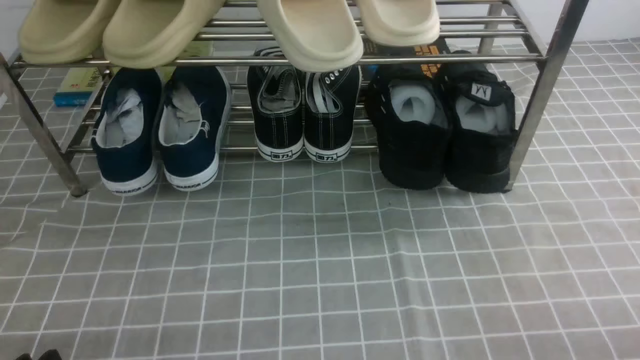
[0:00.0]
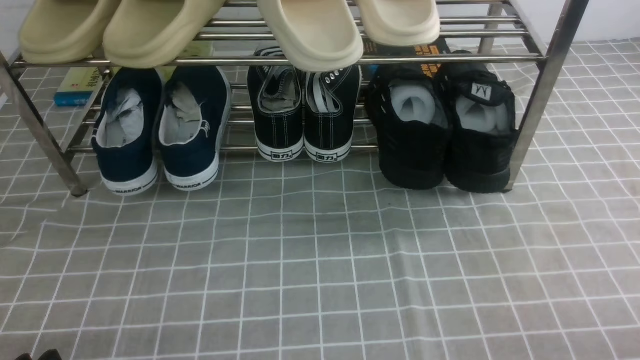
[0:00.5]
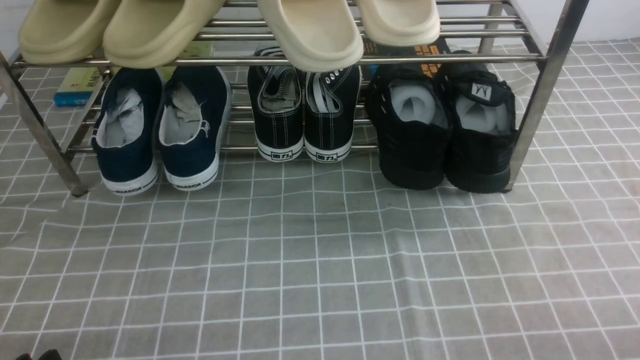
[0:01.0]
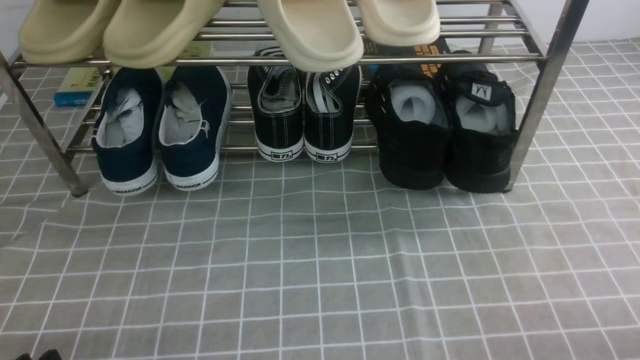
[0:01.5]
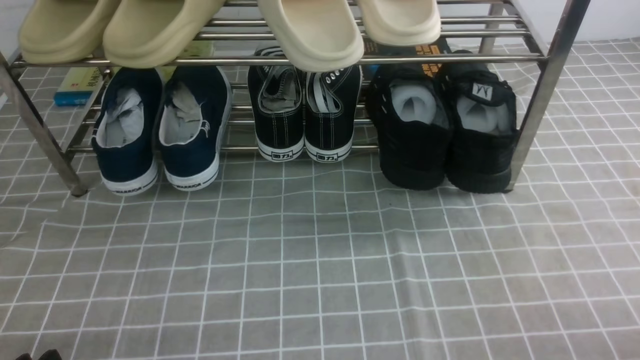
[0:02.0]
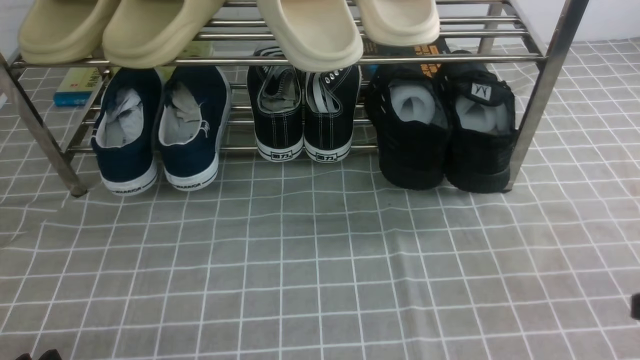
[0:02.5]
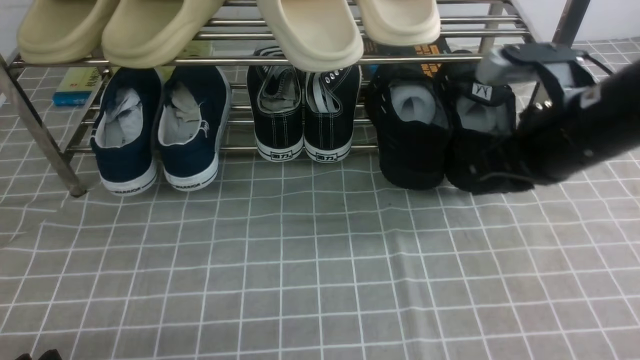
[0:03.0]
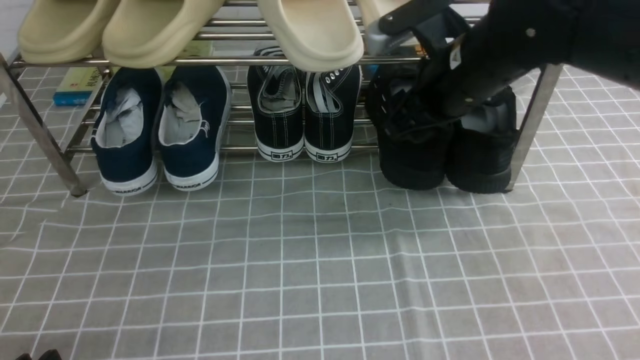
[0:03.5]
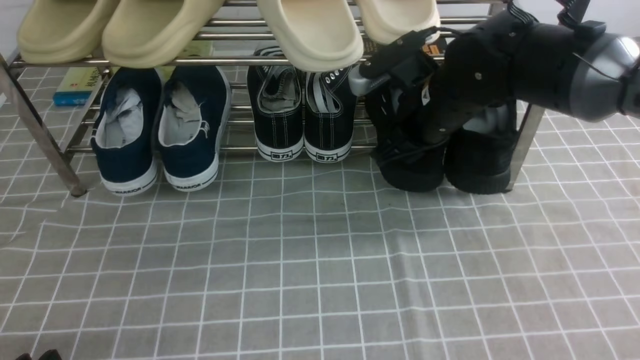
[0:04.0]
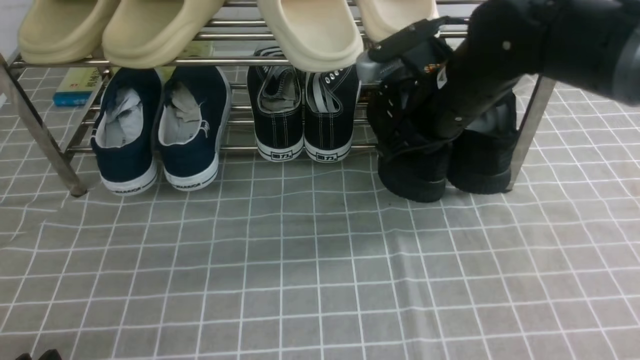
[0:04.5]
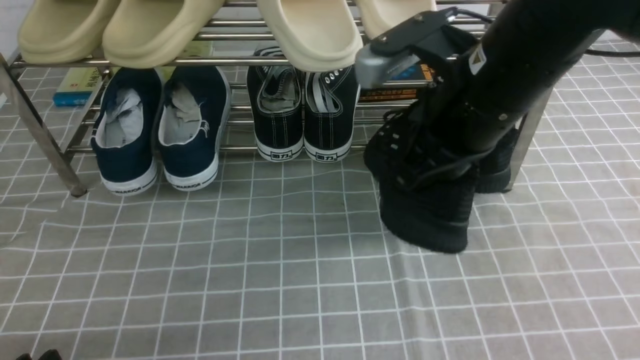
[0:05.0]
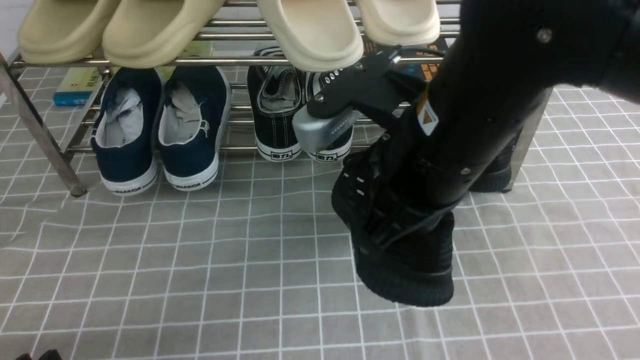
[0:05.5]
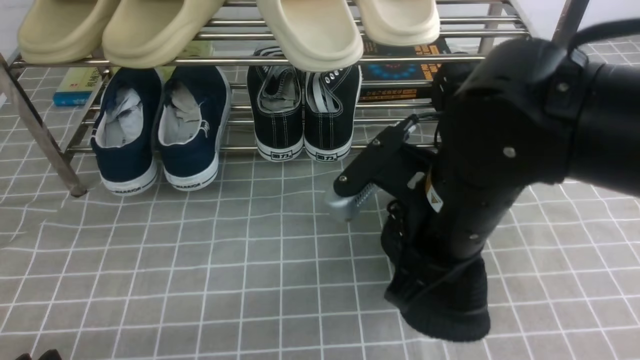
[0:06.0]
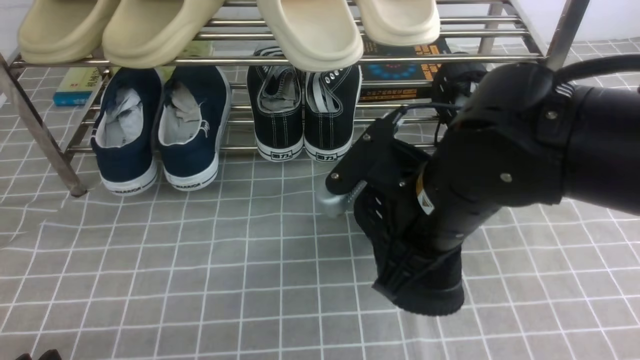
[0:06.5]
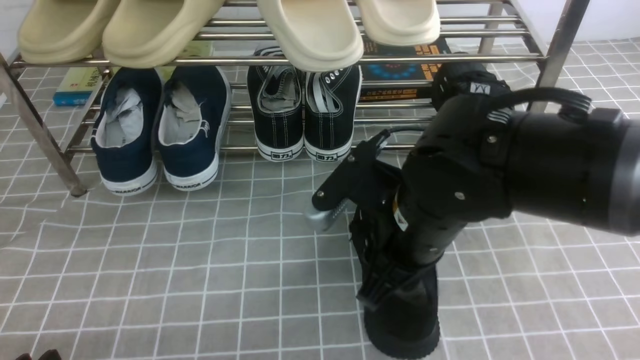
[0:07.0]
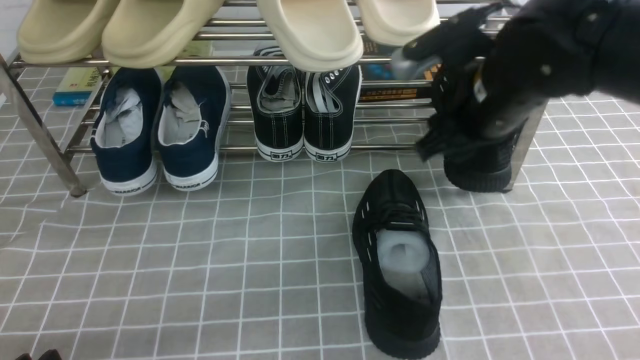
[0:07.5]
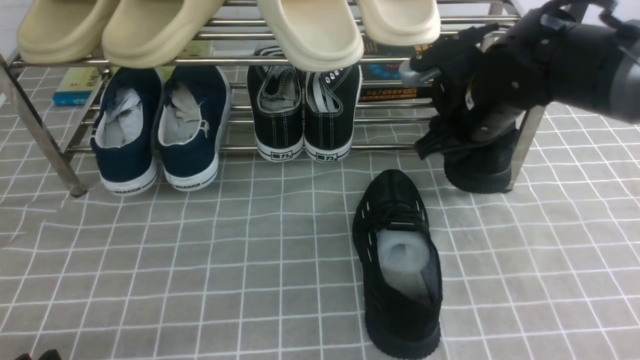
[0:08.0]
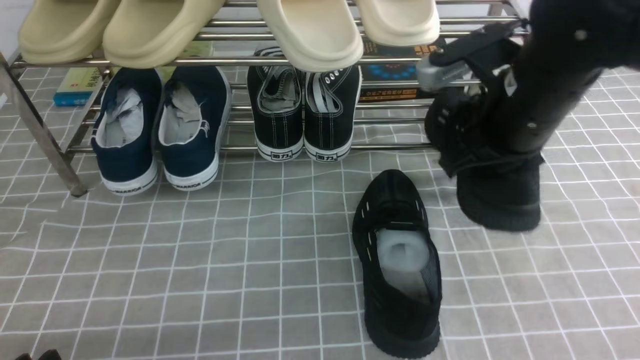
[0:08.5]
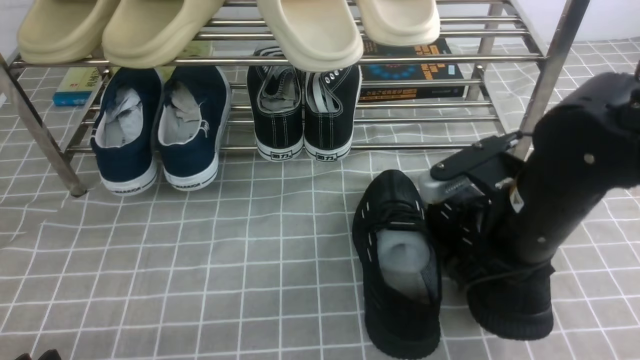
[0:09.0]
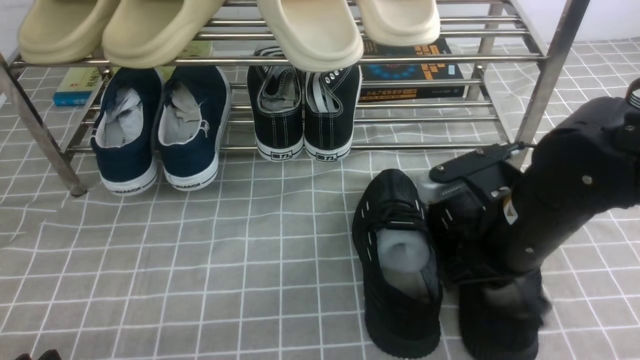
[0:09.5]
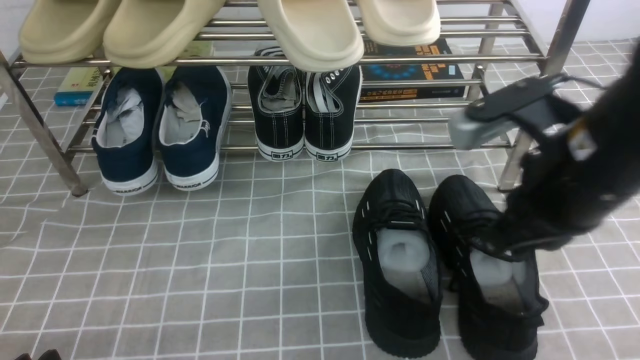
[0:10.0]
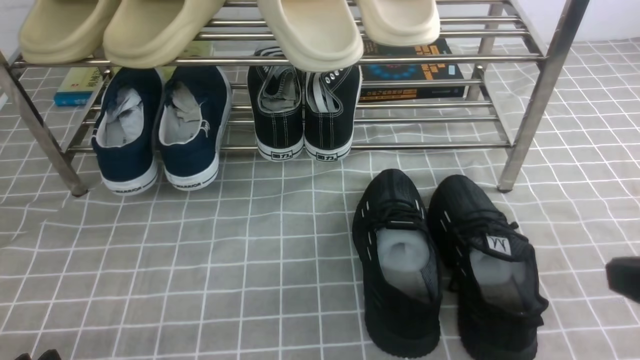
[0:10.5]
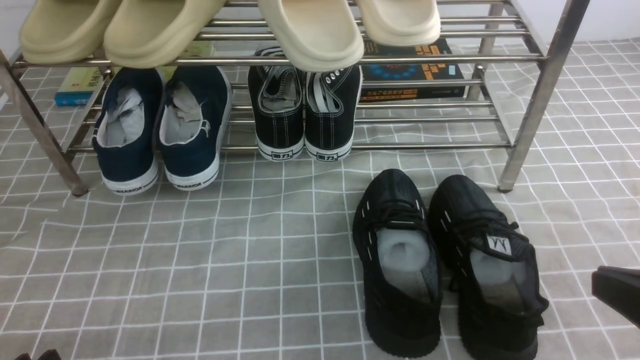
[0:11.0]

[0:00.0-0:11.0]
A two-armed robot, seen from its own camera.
Step, 0:00.0 to 0:04.5: use the right arm to clamp a shoe on the right side of the shoe rack.
Step, 0:05.0 to 0:07.0: use the right arm to take out the clamped shoe from the shoe rack and put it down.
Step, 0:07.5 to 0:08.0: use the right arm to clamp a shoe on the right side of the shoe rack.
Step, 0:08.5 to 0:09.5: use the right arm to take out the clamped shoe from the shoe rack and put it down.
0:02.0 to 0:03.5: The right gripper heads forward and to the left, covering approximately 35 cm, and opens.
0:03.5 to 0:05.5: The right gripper shifts roughly 15 cm backward, and closes up.
0:05.5 to 0:07.5: The right gripper heads forward and to the right, covering approximately 10 cm, and opens up.
0:07.5 to 0:09.0: The right gripper goes some 10 cm backward and downward, and closes its fingers.
0:09.0 to 0:11.0: The right gripper moves backward and to the right, approximately 20 cm.

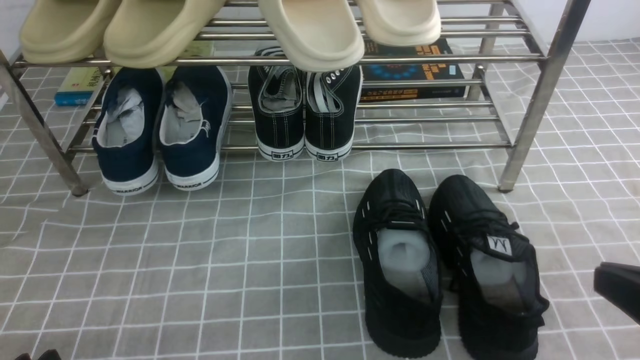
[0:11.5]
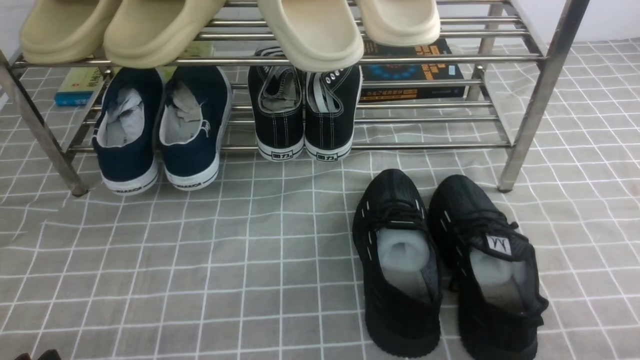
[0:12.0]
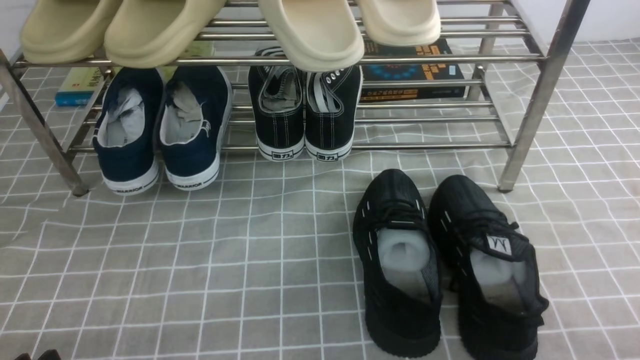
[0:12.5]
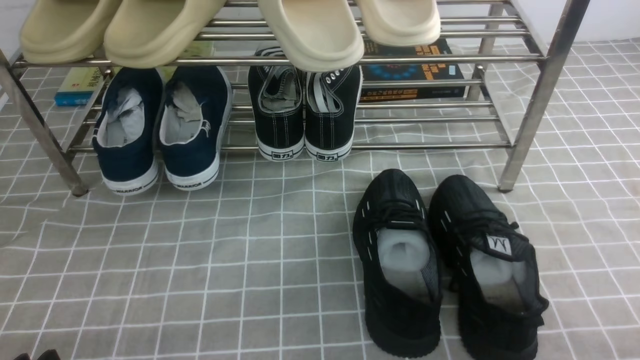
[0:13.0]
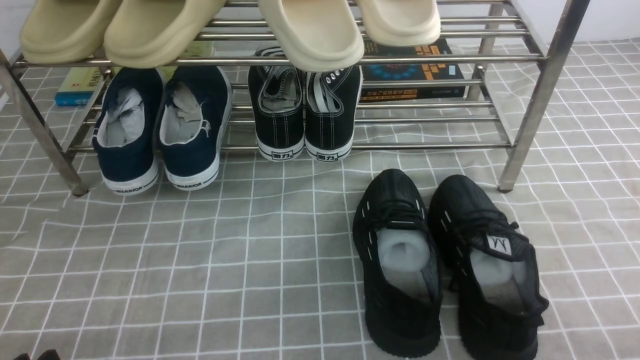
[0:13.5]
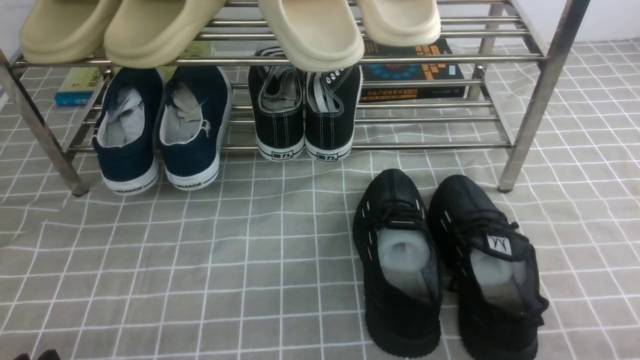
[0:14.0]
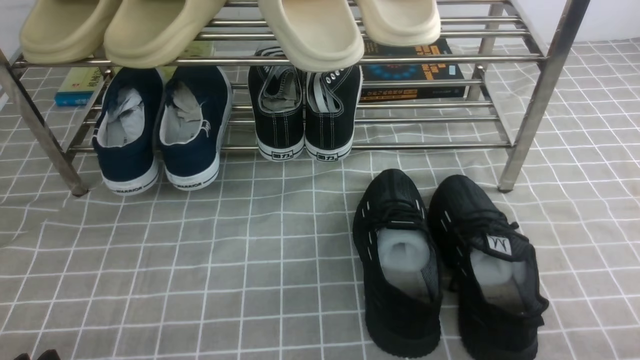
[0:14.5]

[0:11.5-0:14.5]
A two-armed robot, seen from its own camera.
0:11.5 to 0:13.0: The right gripper heads downward, covering approximately 10 cm.
0:13.0 to 0:14.5: Both grippers stay about where they are.

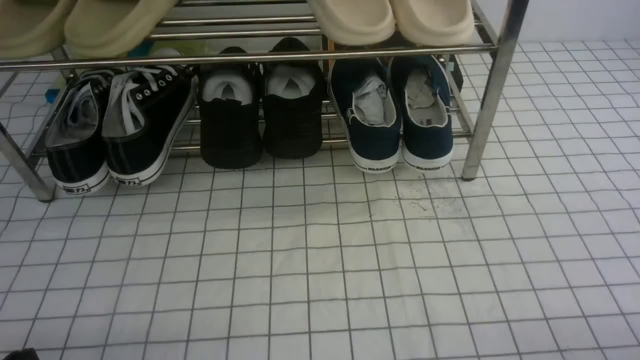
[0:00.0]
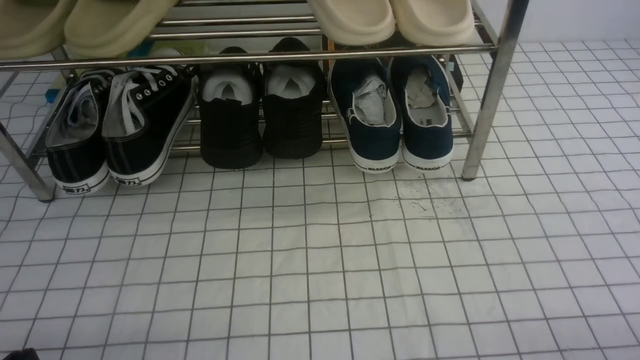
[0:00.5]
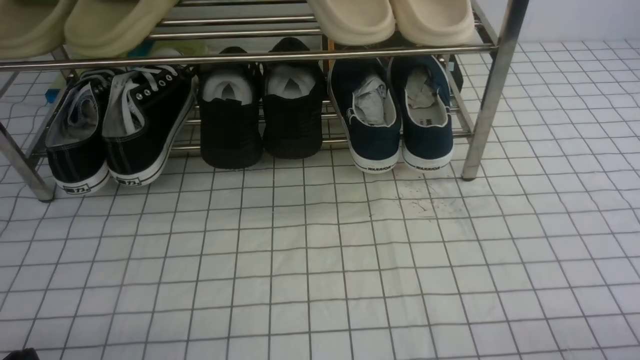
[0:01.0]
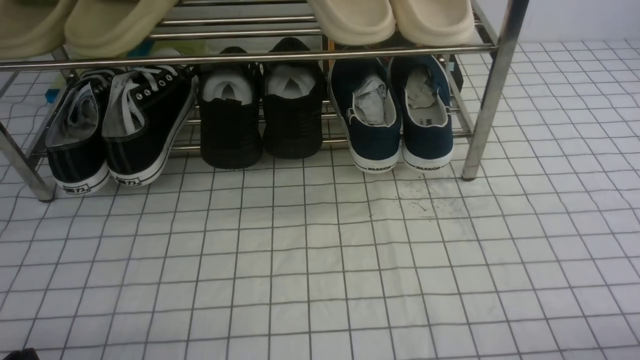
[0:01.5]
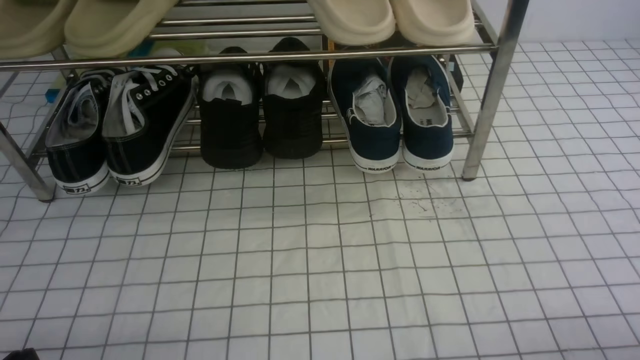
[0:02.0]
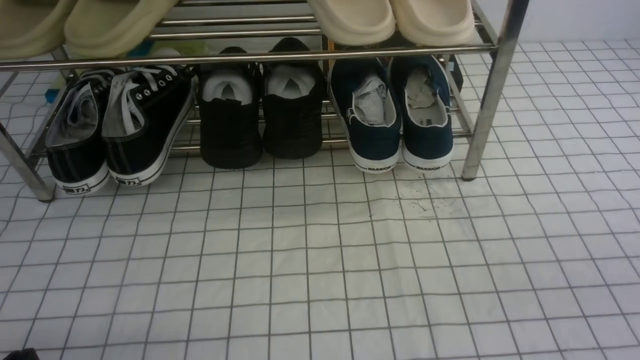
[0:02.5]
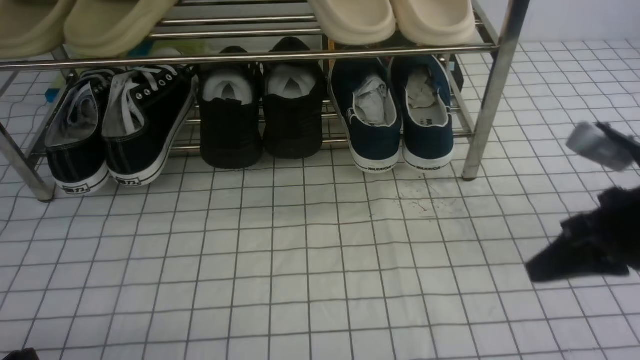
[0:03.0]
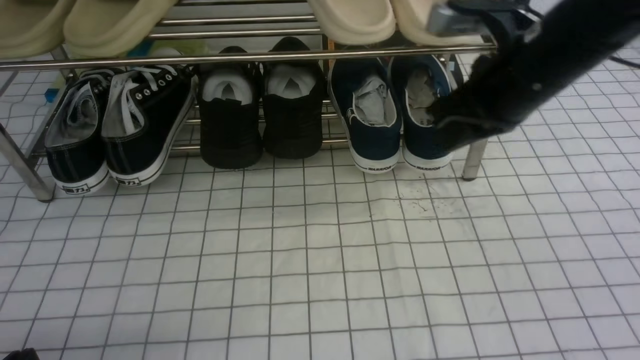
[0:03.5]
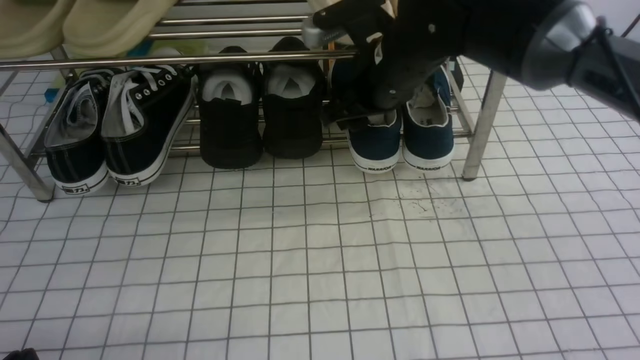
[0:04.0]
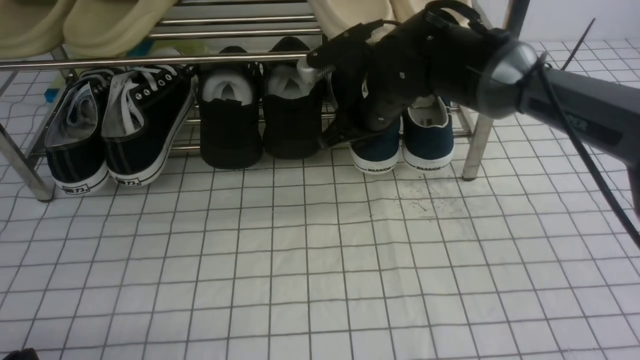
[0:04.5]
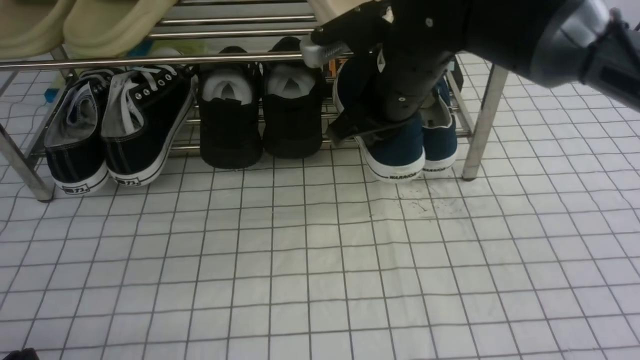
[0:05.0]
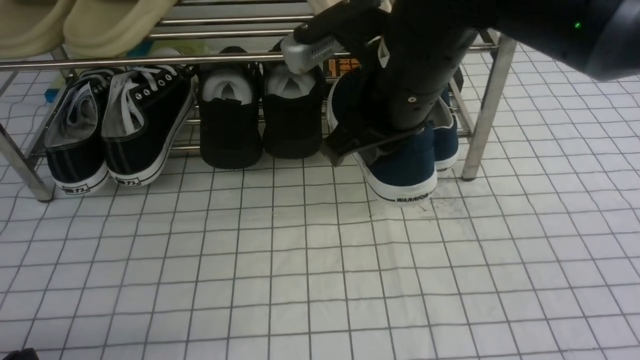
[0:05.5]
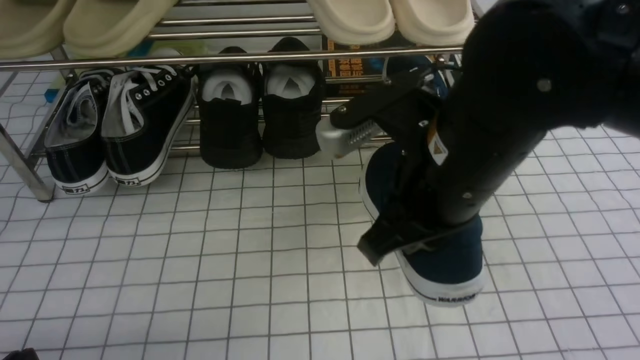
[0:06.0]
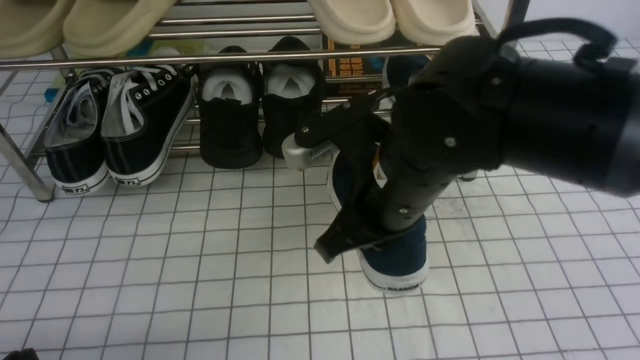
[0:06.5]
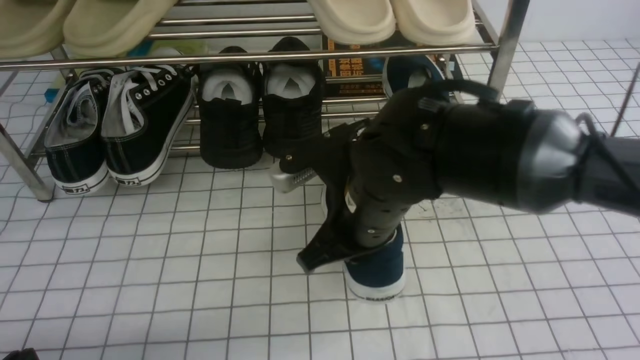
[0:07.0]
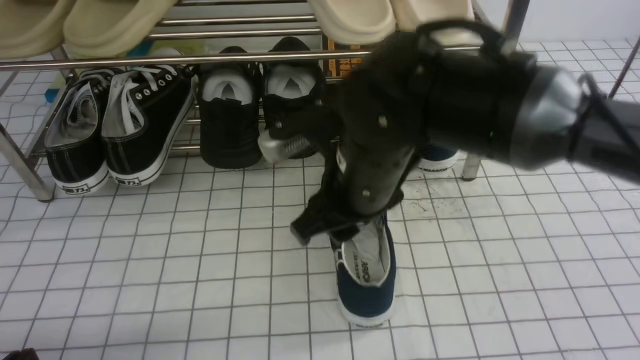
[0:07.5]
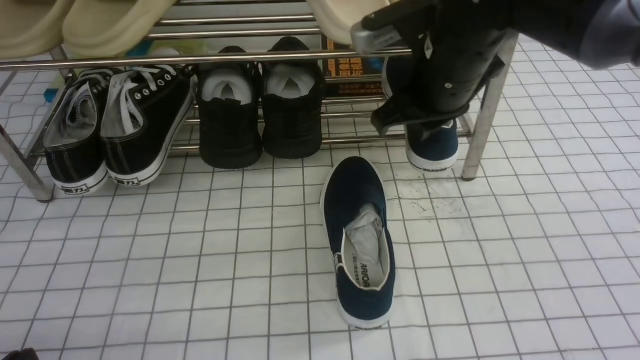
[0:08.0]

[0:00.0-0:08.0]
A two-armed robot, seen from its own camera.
Step, 0:00.0 to 0:04.5: use the right arm to clamp a shoe on the right side of the shoe rack.
Step, 0:05.0 to 0:07.5: use the right arm to take out the clamped shoe from the shoe rack and put it down.
0:02.0 to 0:04.0: The right gripper goes roughly 40 cm forward and to the left, and closes, then reopens.
0:04.0 to 0:06.0: The right gripper is displaced backward by approximately 15 cm, and closes up.
0:06.0 to 0:08.0: The right gripper moves forward, about 10 cm, and opens and closes again.
